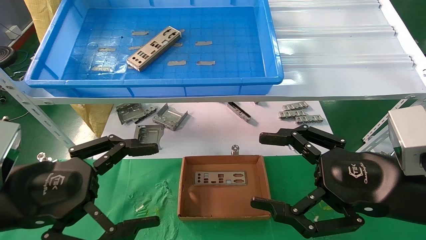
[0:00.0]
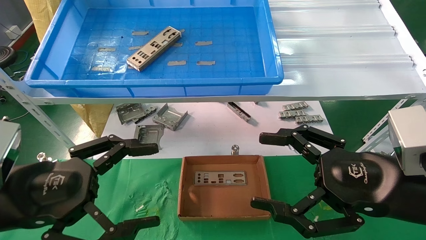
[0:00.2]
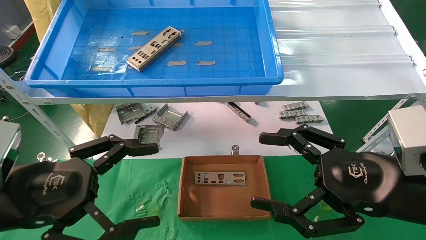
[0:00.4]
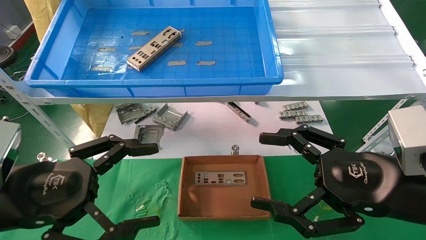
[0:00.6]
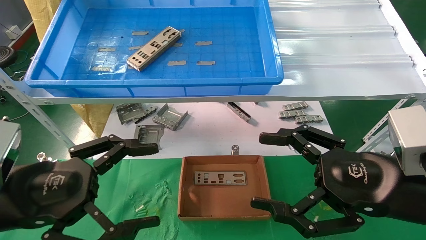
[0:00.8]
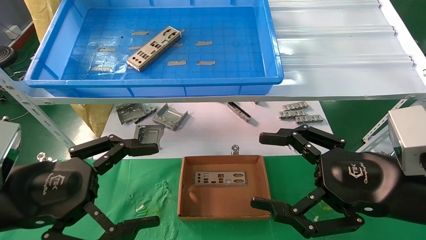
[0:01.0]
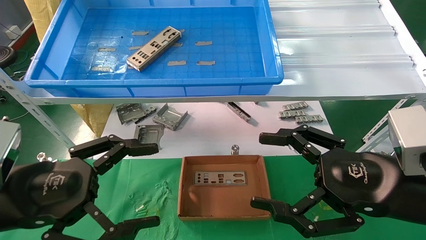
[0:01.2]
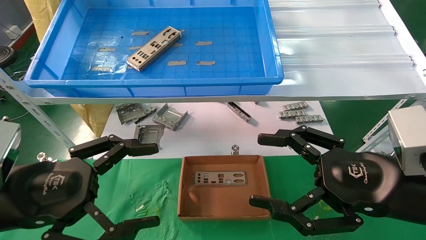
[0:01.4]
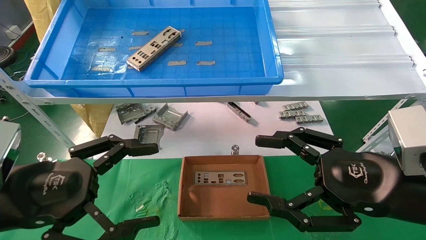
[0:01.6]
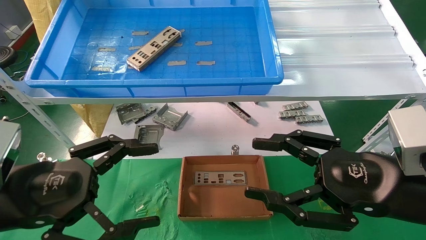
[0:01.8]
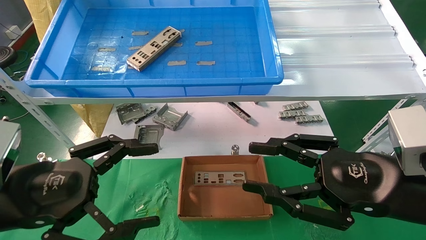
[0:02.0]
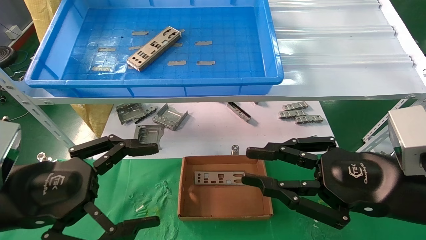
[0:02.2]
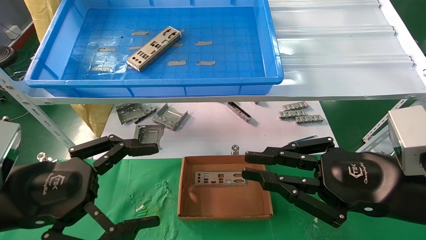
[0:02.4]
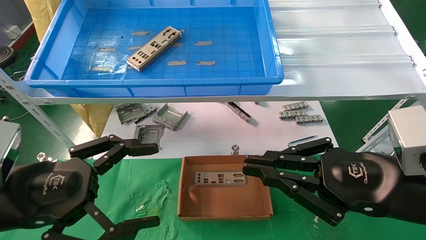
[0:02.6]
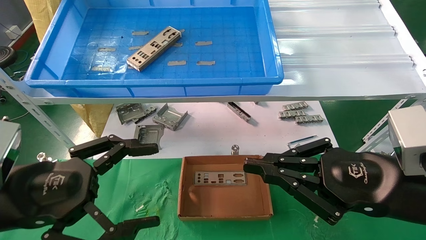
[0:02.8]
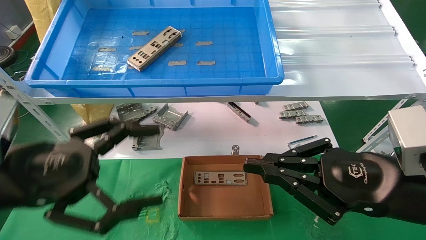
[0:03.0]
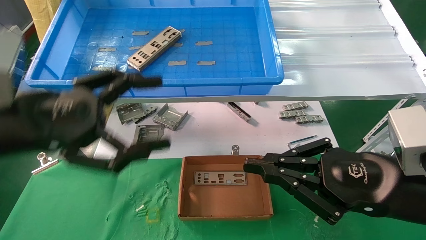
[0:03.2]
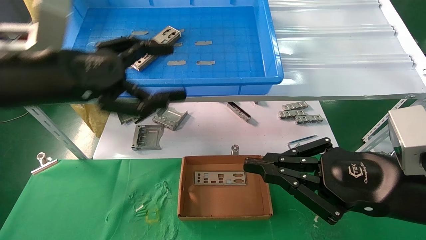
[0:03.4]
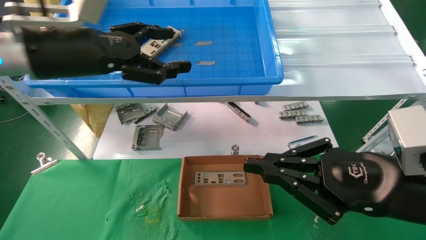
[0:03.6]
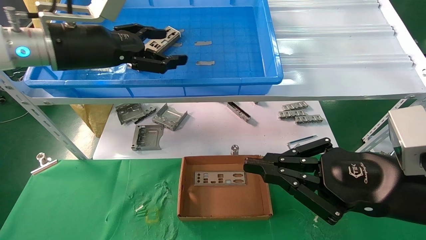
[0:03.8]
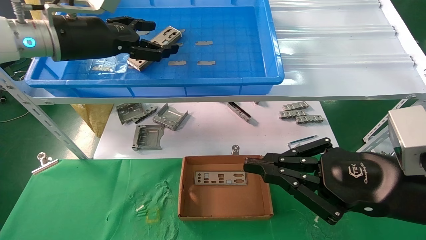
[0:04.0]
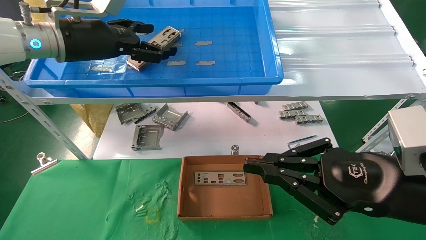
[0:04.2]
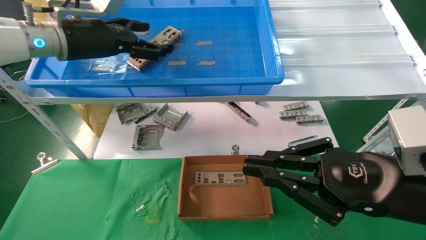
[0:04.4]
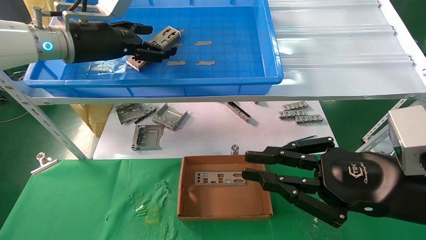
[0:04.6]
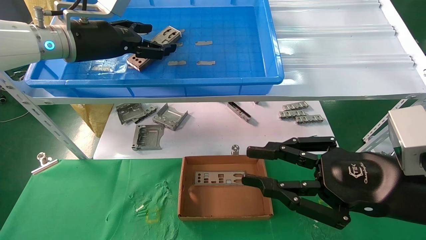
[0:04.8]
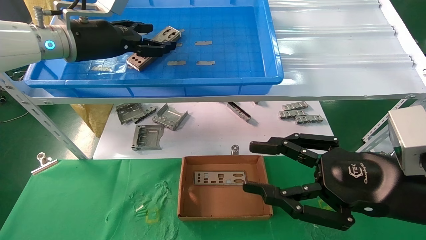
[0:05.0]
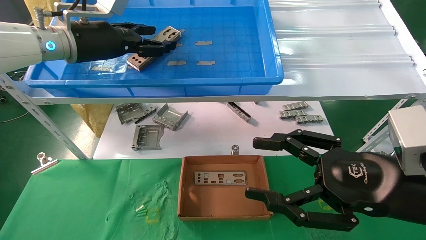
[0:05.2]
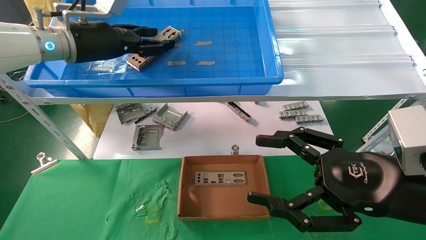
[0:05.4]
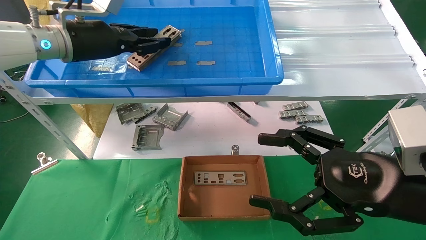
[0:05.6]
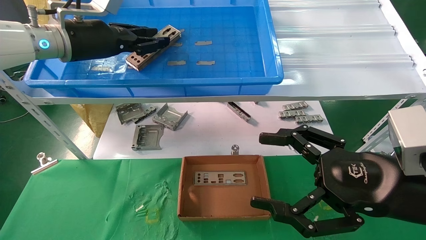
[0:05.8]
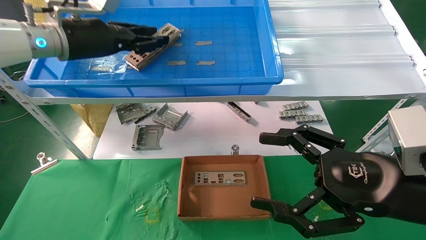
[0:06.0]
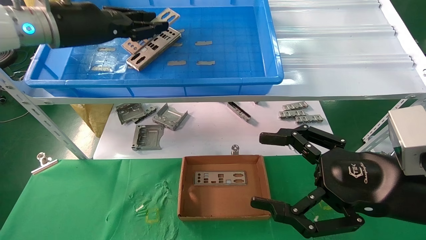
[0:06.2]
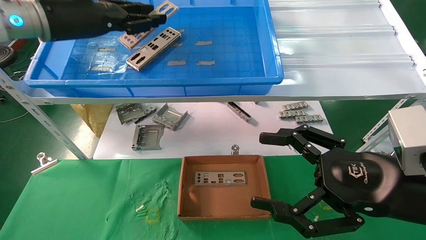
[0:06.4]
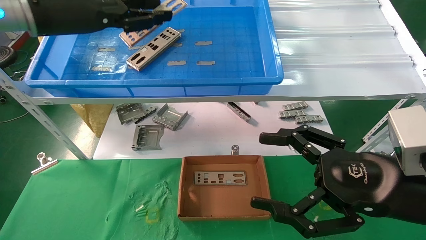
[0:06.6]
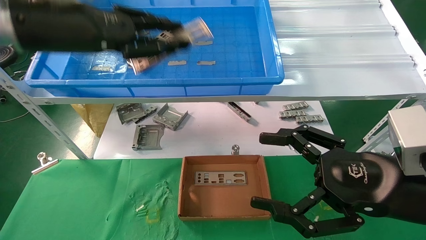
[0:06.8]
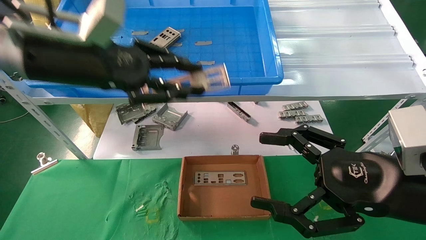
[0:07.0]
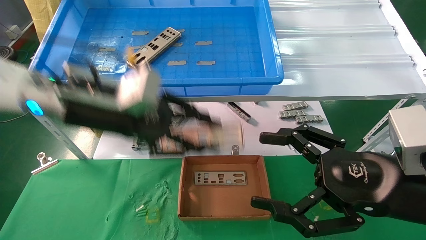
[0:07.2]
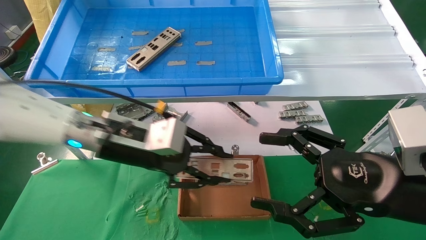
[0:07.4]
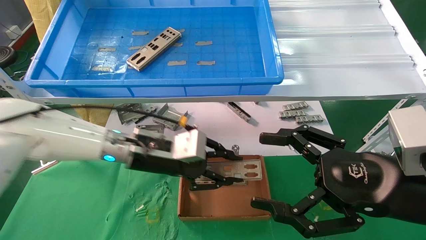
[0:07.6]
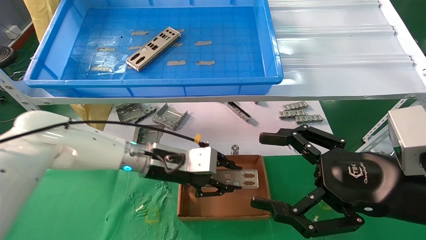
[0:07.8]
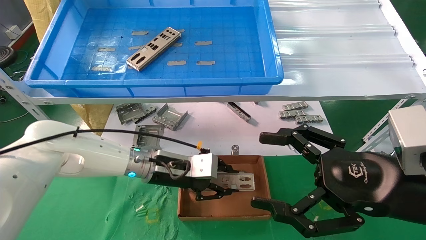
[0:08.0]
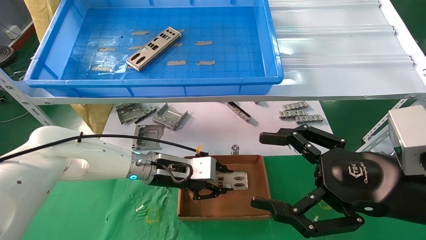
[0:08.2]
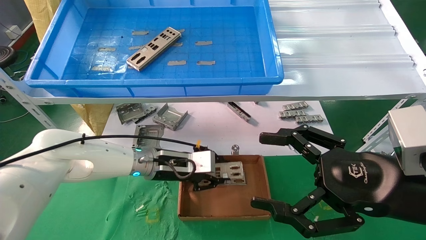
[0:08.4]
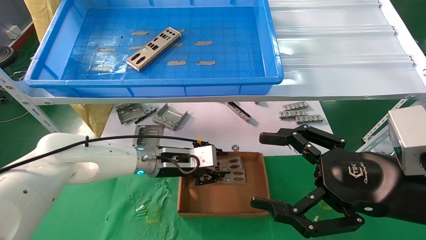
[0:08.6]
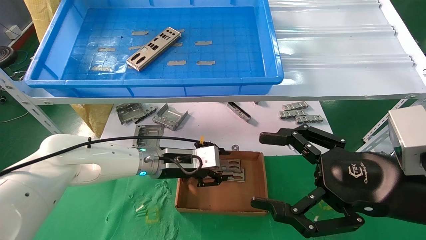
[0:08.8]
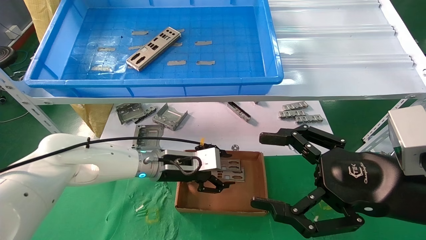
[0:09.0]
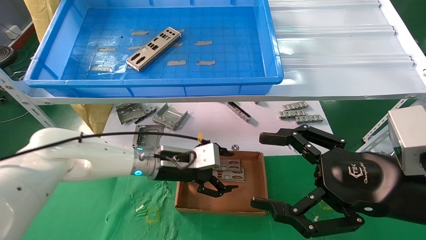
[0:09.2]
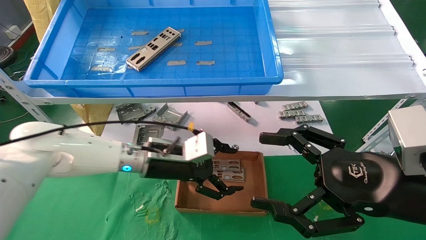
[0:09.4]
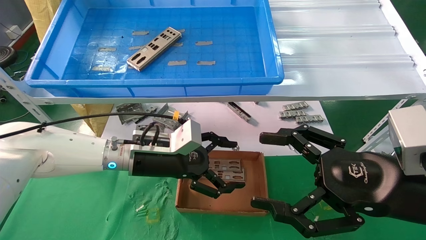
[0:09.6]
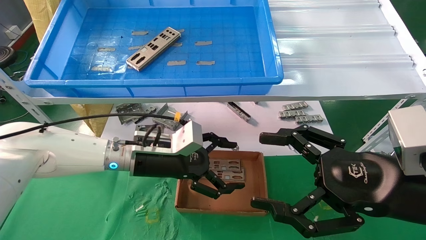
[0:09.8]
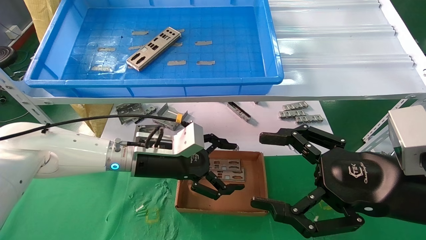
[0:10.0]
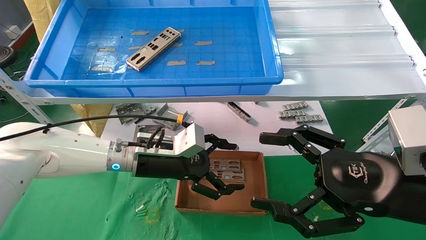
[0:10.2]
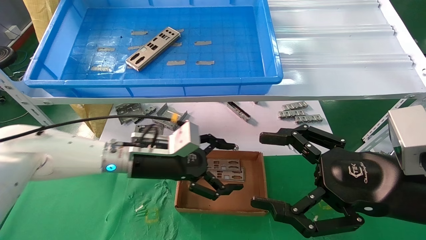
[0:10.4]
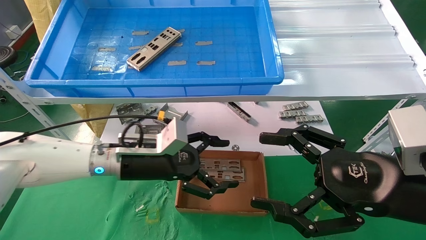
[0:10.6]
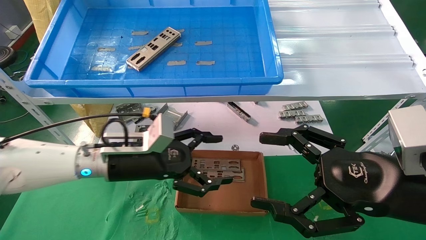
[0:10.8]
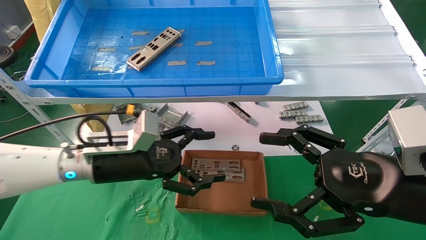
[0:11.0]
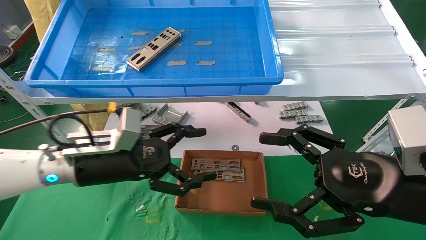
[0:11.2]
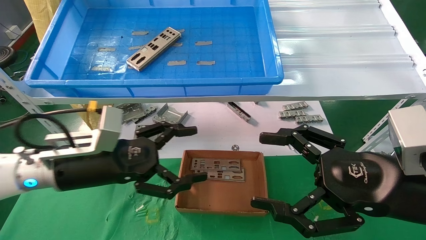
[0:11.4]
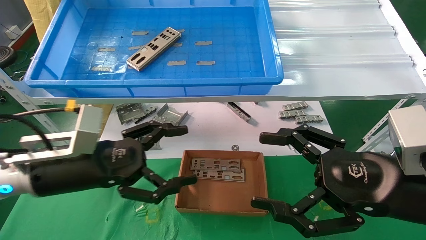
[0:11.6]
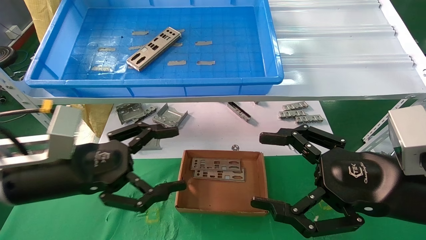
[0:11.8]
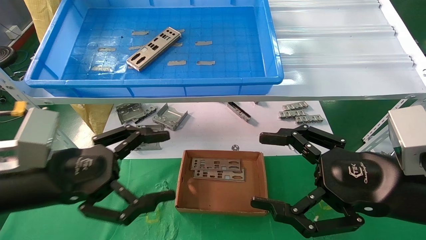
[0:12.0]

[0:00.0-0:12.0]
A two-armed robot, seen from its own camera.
Task of the whole recording: pick up the parts on the tray and put them in the cardboard box.
Step, 0:03.2 to 0:05.8: Pick up the IO bracket from the container box.
Step, 0:06.0 to 0:09.2: Place the IO bracket into the ingredient slot.
0:00.0 to 0:01.6: Both grippers stay about where they are.
0:01.6 to 0:03.0: The right gripper closes up.
0:03.0 to 0:04.4: The left gripper moves forward and upward, about 25 cm.
0:04.4 to 0:06.0: The left gripper closes up; the right gripper opens its fingers.
0:06.0 to 0:07.6: The left gripper travels downward and to the right by roughly 25 cm.
0:07.6 to 0:09.0: The left gripper is displaced downward by approximately 5 cm, and opens its fingers.
0:09.0 to 0:10.4: The left gripper goes roughly 5 cm backward, and opens up.
0:10.4 to 0:12.0: The left gripper shifts approximately 20 cm backward and to the left.

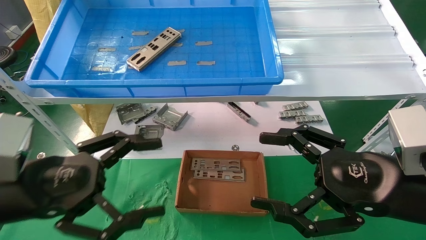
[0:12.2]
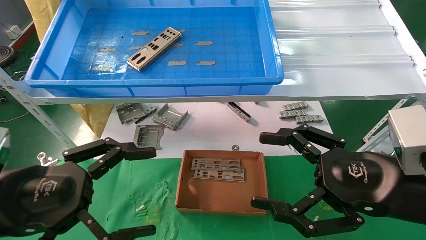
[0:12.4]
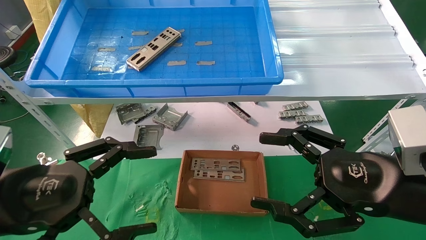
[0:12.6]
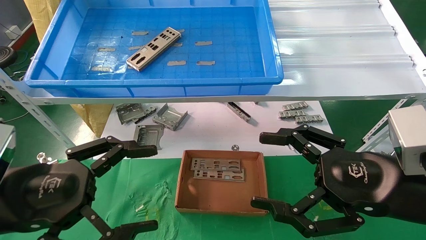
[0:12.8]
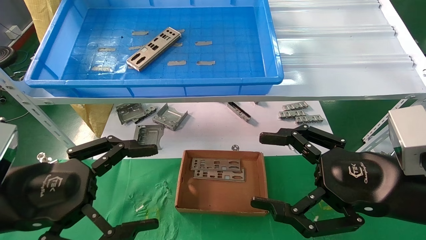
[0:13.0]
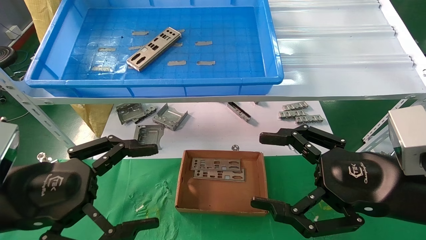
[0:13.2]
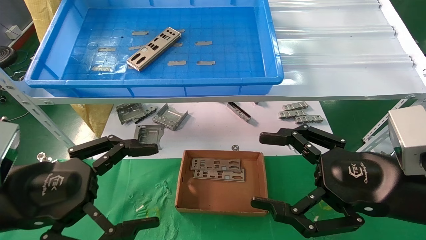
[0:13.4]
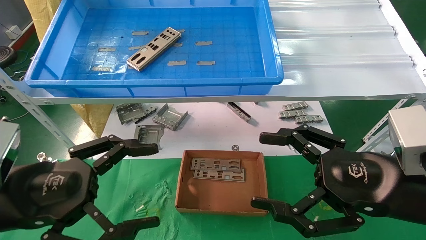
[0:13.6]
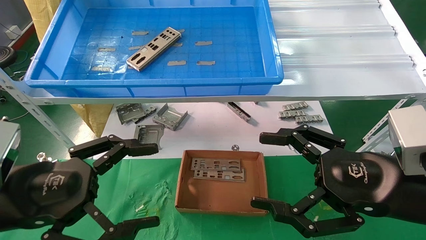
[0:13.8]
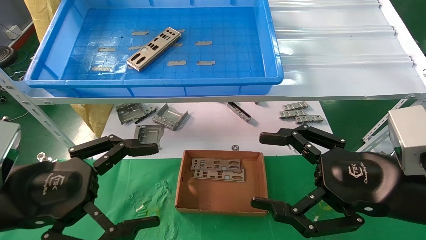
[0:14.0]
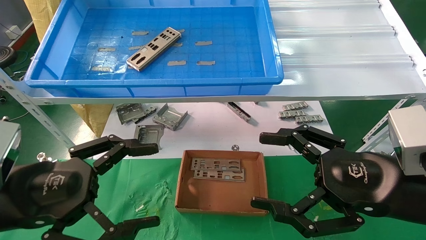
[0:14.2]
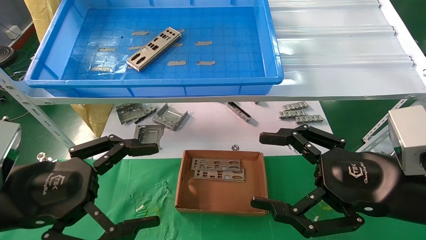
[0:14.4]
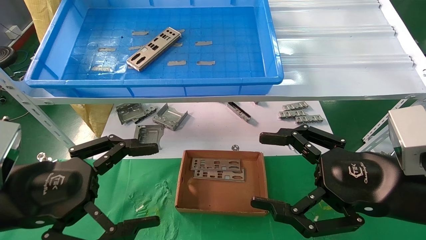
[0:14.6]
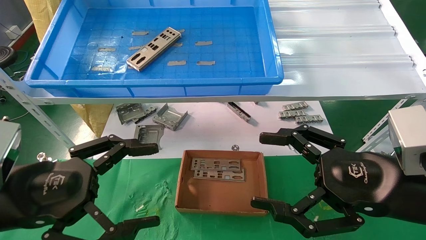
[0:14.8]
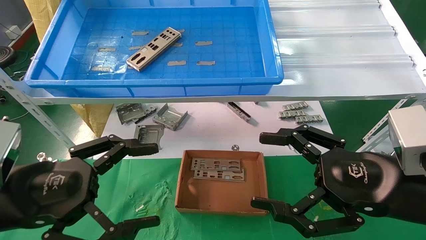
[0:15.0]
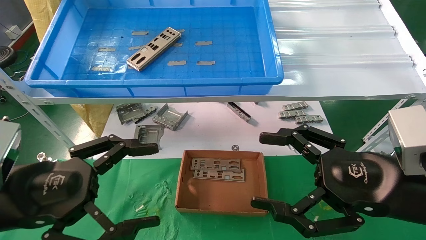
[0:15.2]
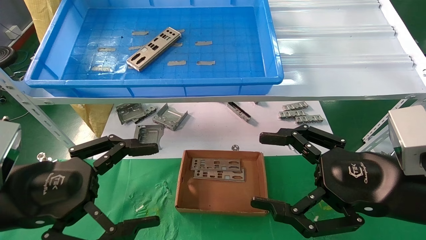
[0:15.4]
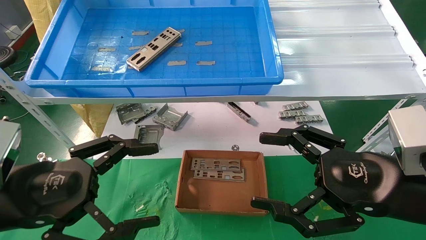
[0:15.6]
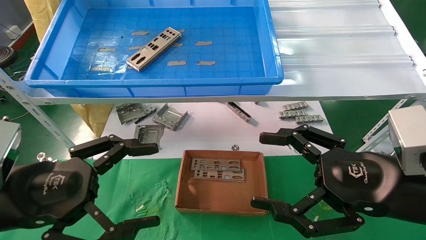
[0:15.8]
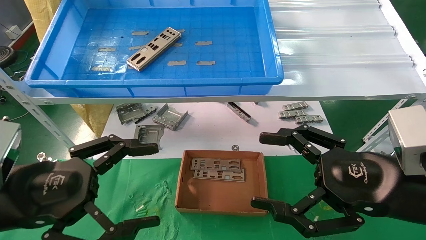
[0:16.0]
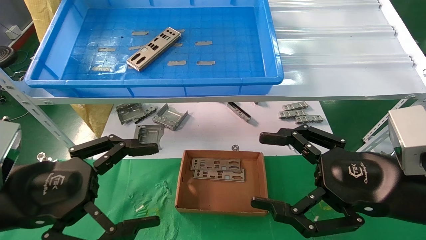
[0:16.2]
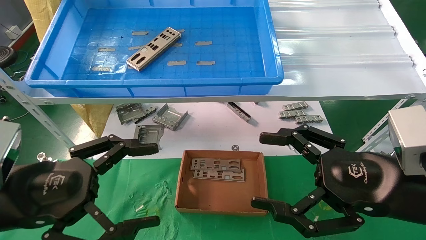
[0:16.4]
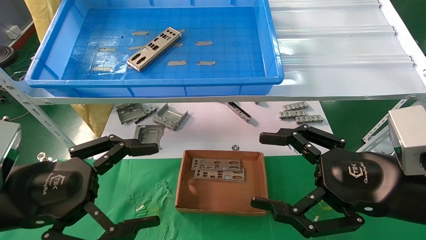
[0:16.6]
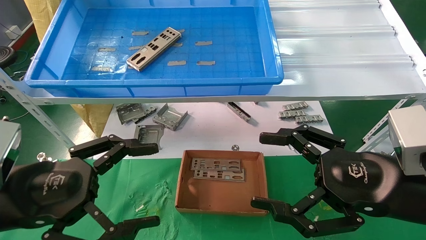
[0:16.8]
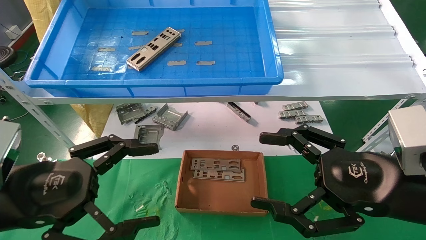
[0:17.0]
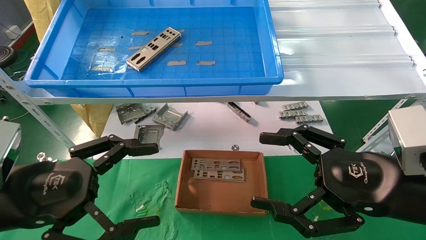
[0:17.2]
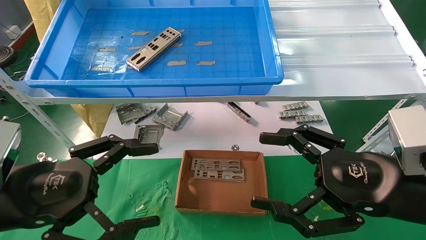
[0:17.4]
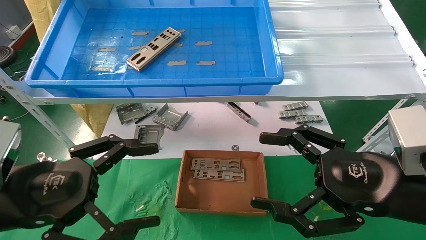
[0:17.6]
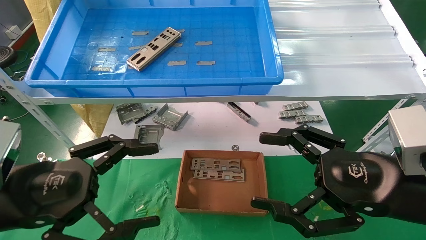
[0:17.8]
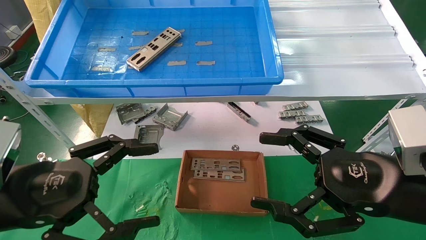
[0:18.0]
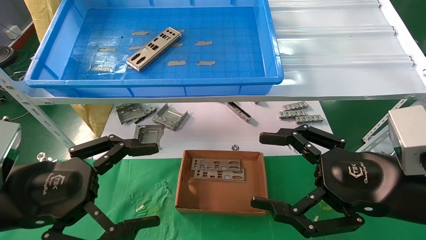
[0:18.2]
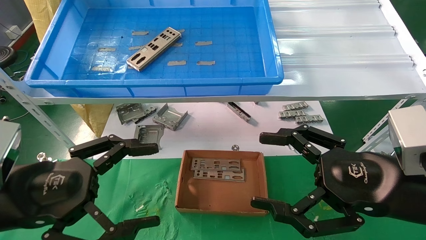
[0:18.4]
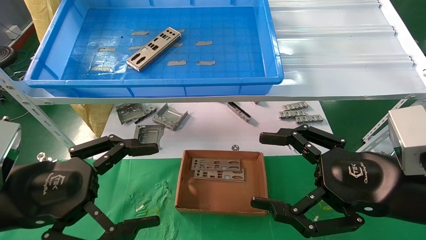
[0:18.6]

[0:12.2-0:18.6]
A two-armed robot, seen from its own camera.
Task of the whole recording: pick up the parts on the tray and put them in the cardboard box.
0:12.2 to 0:13.8: The grippers make only small movements.
0:13.8 to 0:18.6: Both grippers stay about where they are.
